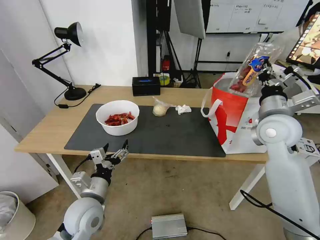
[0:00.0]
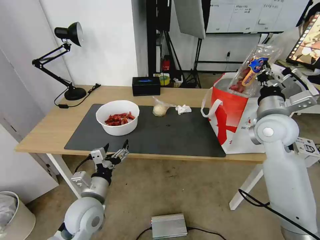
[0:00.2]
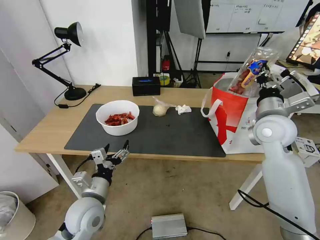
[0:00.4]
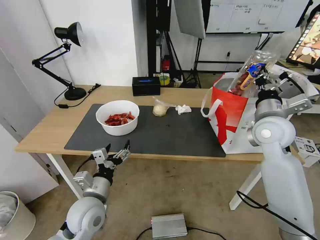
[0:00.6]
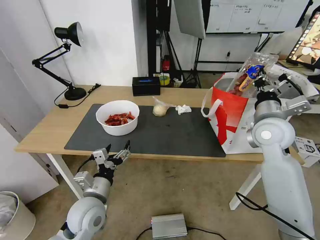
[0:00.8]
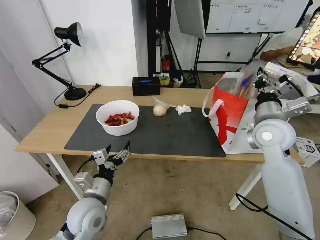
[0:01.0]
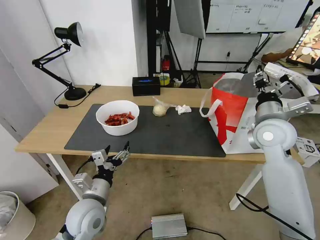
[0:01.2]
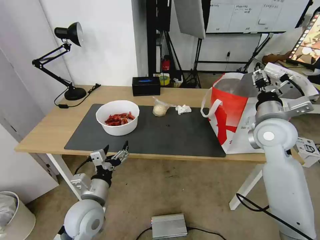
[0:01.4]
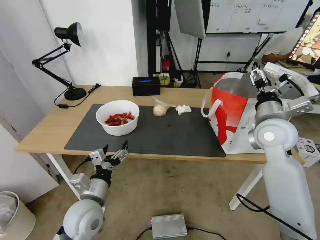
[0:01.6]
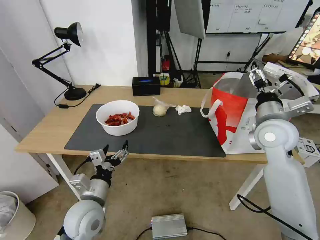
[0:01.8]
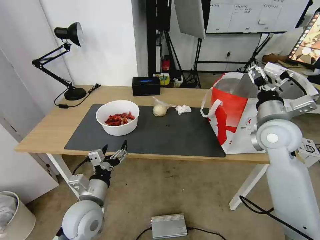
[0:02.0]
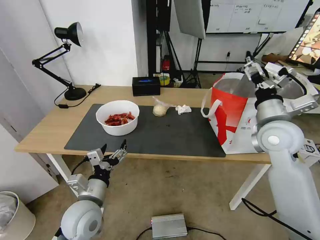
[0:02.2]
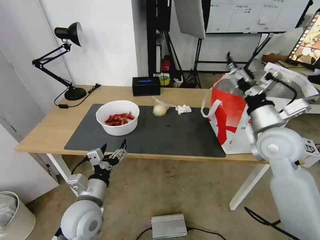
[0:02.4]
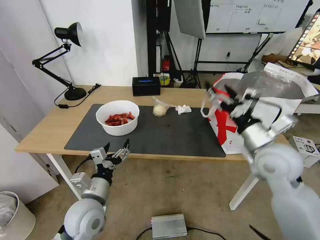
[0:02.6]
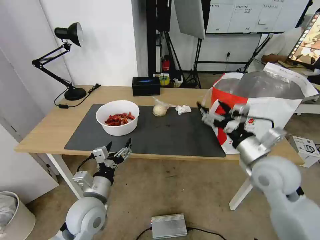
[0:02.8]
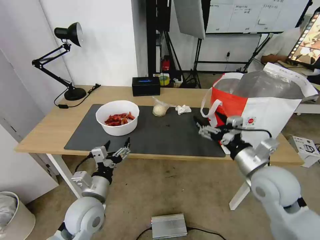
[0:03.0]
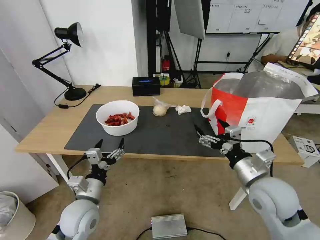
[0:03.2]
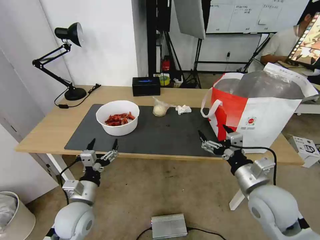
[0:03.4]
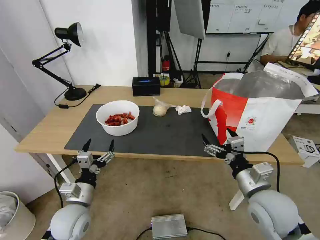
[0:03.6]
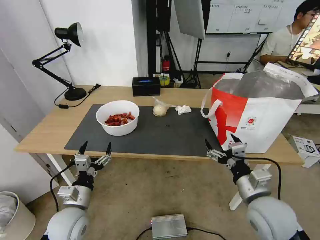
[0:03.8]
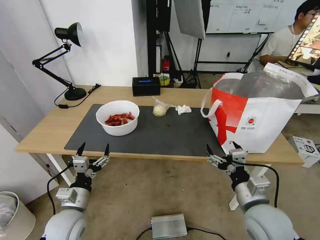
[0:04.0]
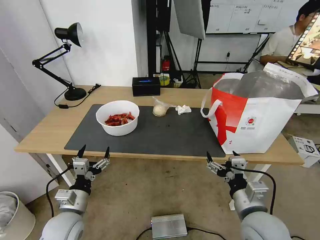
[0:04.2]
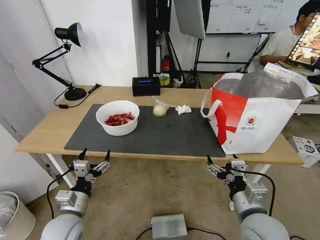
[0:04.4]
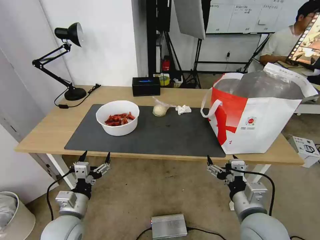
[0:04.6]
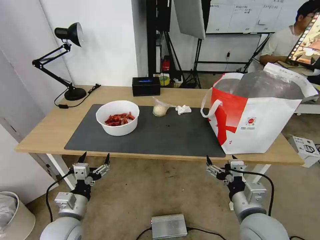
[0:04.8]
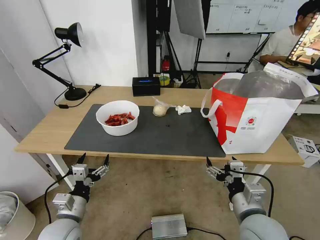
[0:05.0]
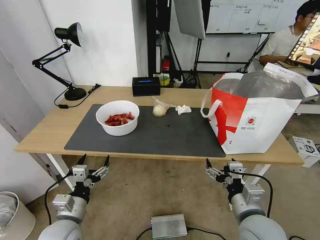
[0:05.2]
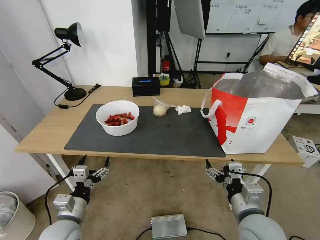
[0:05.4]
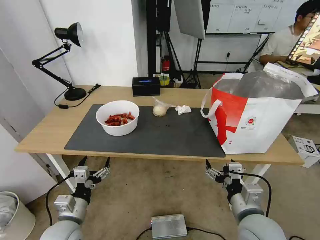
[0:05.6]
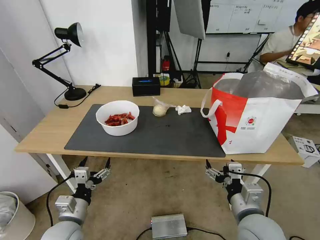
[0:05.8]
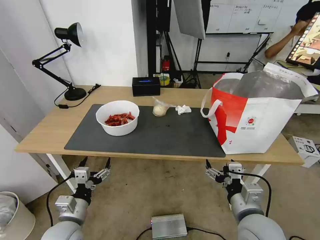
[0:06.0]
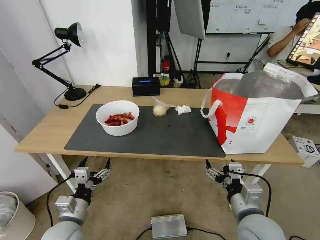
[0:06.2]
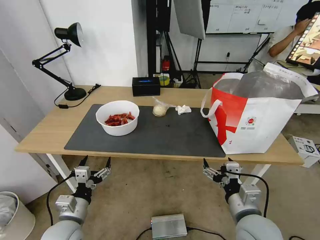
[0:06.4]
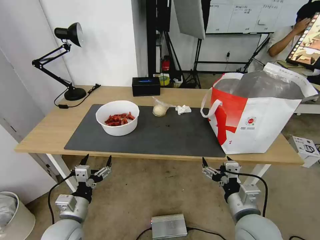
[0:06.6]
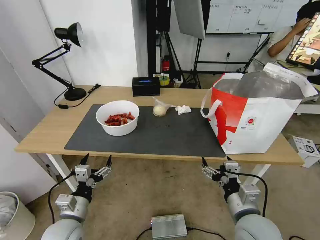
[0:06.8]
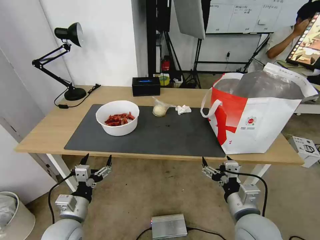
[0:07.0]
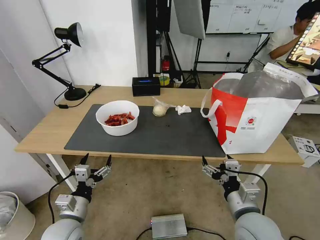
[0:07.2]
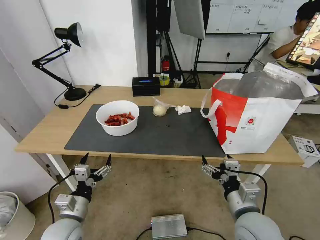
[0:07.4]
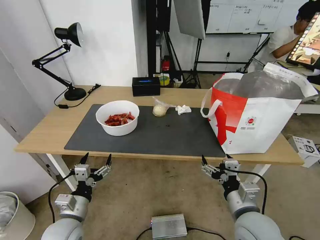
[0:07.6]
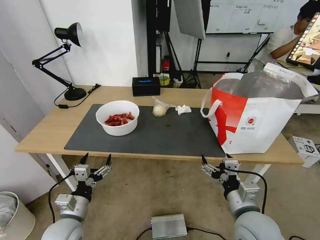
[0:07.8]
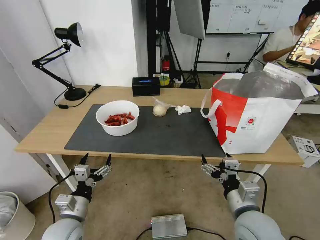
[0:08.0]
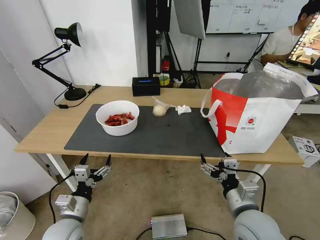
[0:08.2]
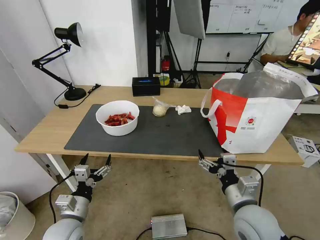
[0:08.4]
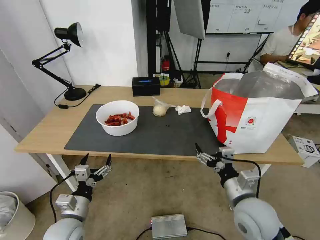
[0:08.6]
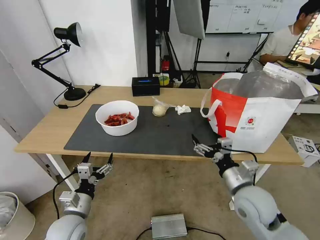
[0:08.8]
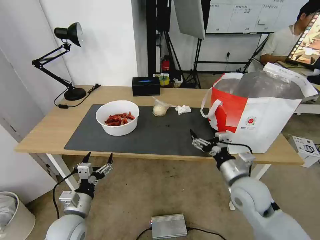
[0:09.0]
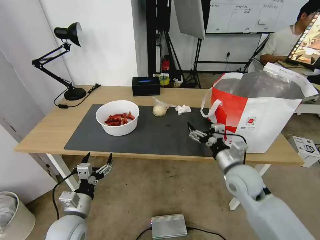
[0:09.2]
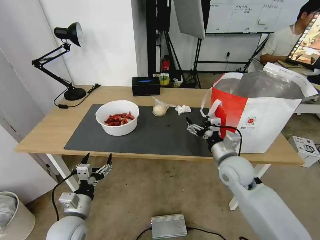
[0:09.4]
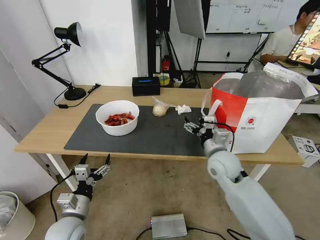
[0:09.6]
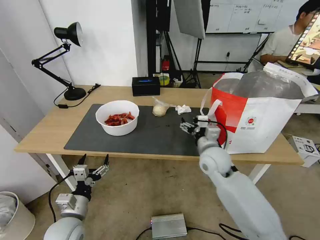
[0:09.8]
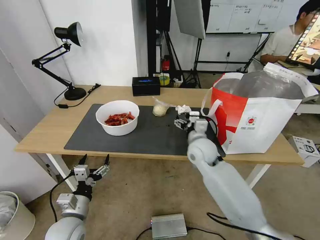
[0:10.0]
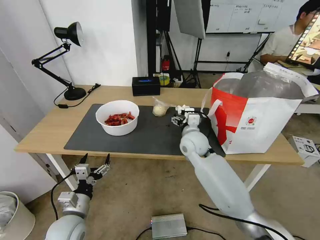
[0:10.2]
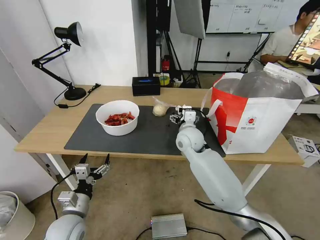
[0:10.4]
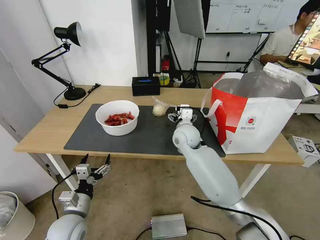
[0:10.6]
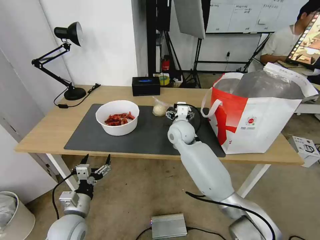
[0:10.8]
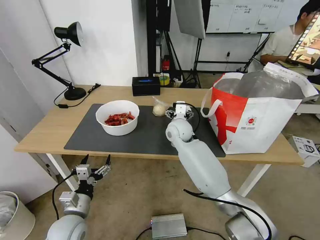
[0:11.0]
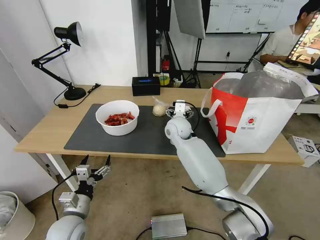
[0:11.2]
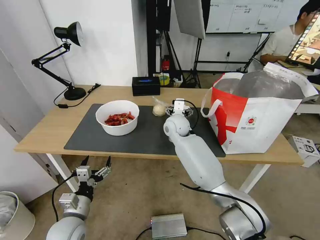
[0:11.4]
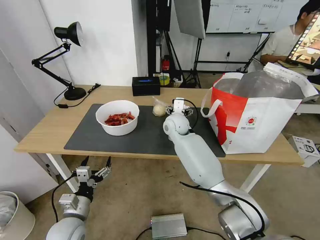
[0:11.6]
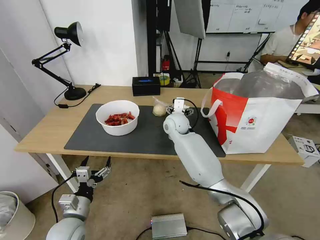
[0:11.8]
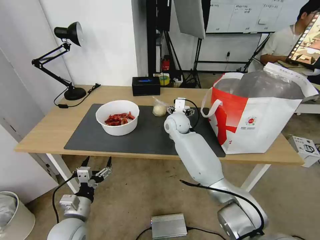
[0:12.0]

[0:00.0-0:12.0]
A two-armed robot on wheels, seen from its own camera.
Task of the whole recording: Pick up the trash from the table and place it into the takeout bag.
0:00.0 to 0:01.6: The right gripper opens.
0:01.6 to 0:03.0: The right gripper moves backward and downward, about 15 cm.
0:03.0 to 0:04.4: The left gripper is displaced to the left by approximately 5 cm; the right gripper moves backward and downward, some 10 cm.
0:04.4 to 0:07.6: There are only small adjustments of the grippers.
0:07.6 to 0:09.0: The right gripper shifts approximately 10 cm forward.
0:09.0 to 0:10.4: The right gripper shifts some 25 cm forward and to the left.
0:10.4 to 0:12.0: The right gripper heads forward, covering roughly 10 cm.

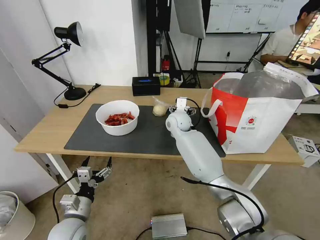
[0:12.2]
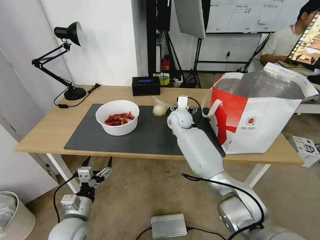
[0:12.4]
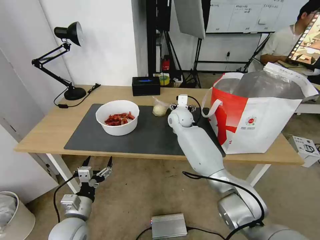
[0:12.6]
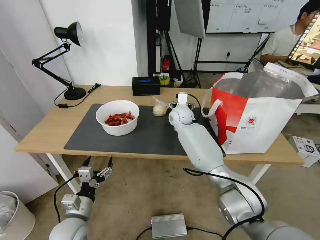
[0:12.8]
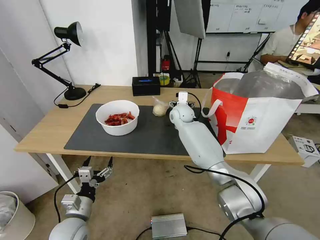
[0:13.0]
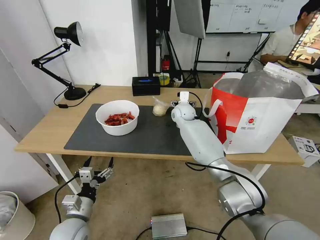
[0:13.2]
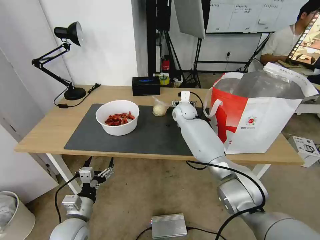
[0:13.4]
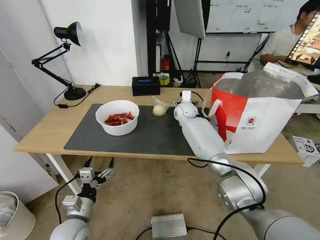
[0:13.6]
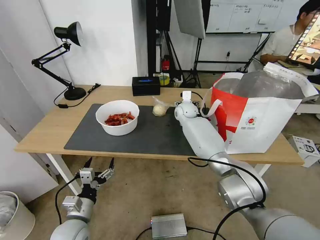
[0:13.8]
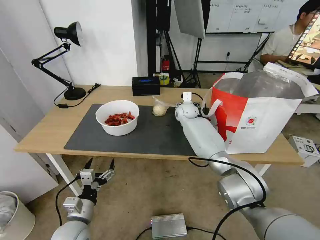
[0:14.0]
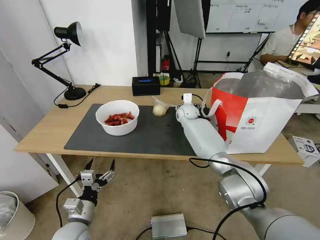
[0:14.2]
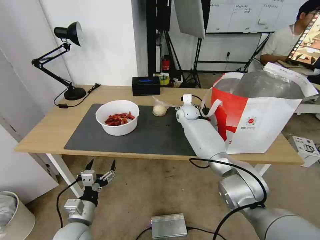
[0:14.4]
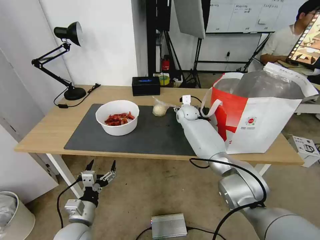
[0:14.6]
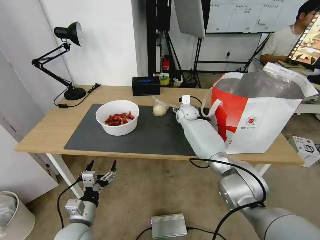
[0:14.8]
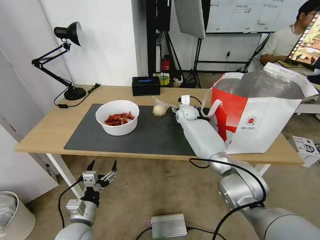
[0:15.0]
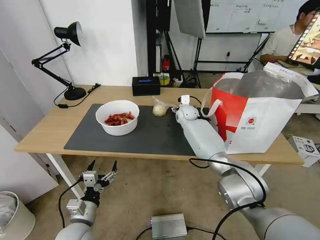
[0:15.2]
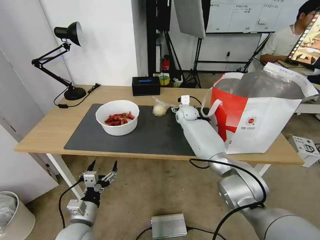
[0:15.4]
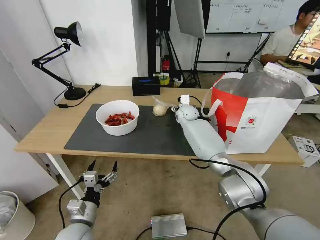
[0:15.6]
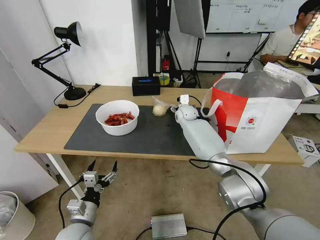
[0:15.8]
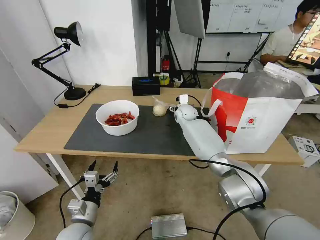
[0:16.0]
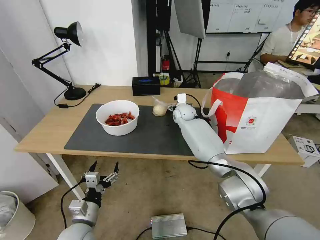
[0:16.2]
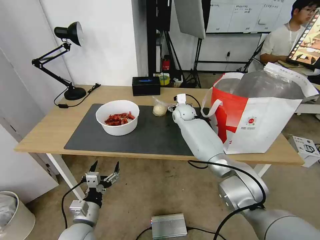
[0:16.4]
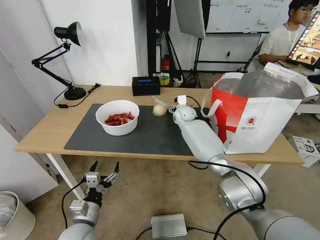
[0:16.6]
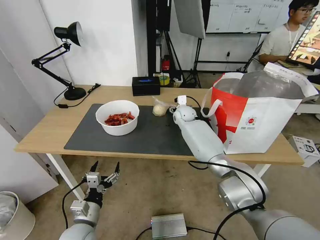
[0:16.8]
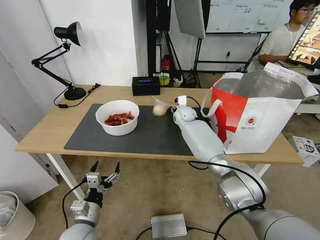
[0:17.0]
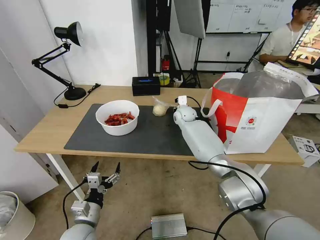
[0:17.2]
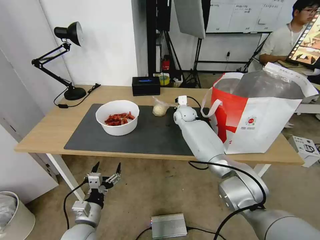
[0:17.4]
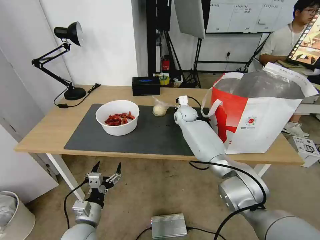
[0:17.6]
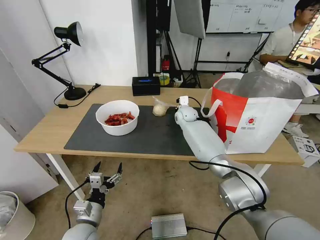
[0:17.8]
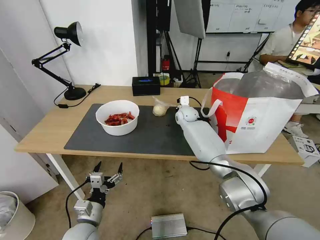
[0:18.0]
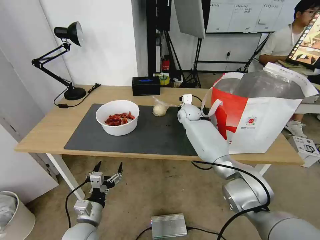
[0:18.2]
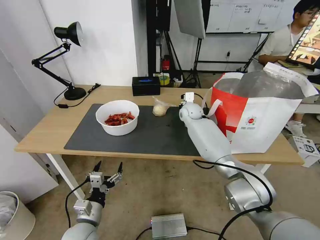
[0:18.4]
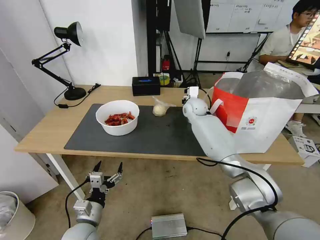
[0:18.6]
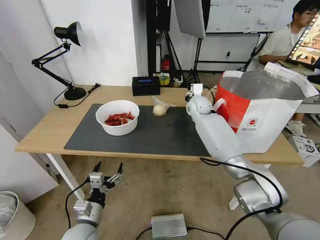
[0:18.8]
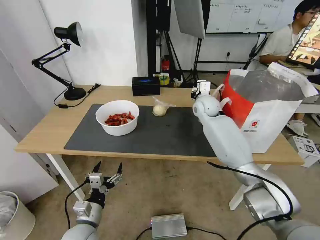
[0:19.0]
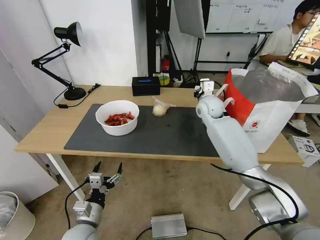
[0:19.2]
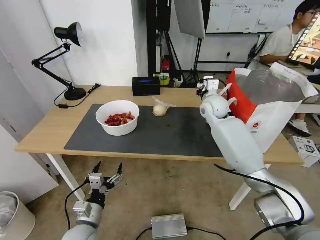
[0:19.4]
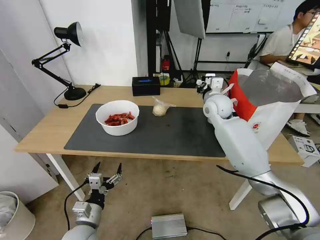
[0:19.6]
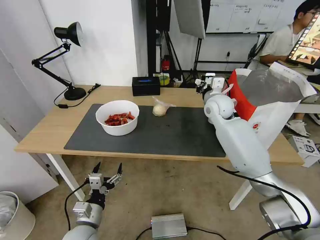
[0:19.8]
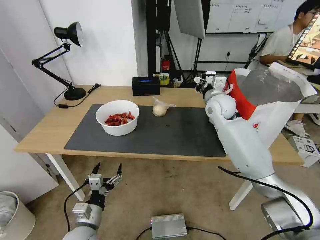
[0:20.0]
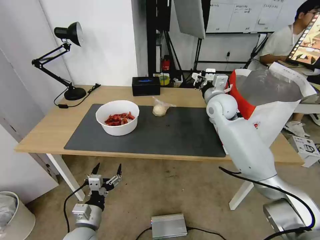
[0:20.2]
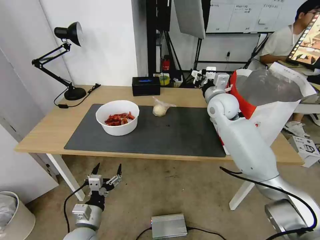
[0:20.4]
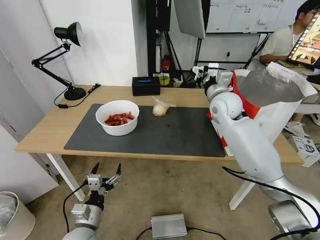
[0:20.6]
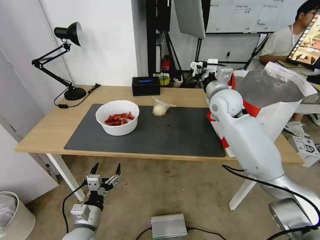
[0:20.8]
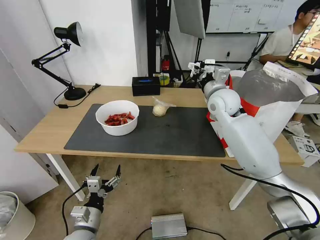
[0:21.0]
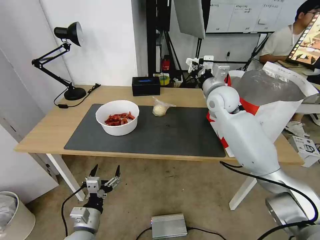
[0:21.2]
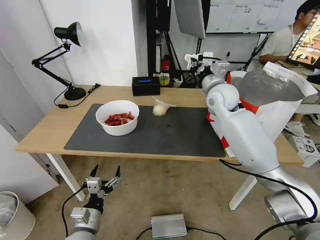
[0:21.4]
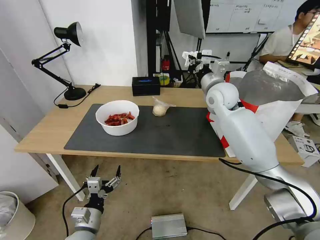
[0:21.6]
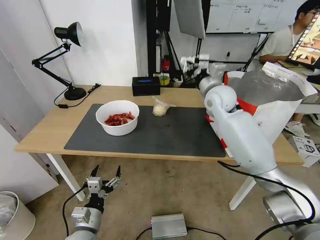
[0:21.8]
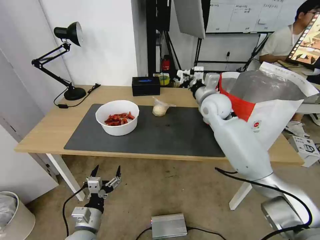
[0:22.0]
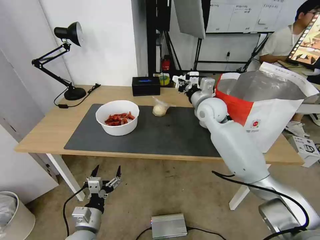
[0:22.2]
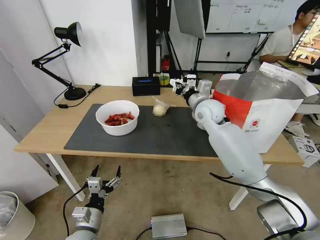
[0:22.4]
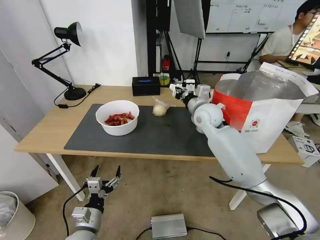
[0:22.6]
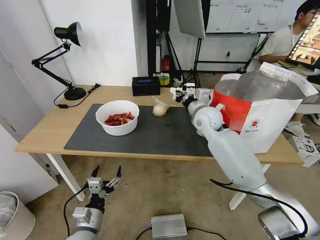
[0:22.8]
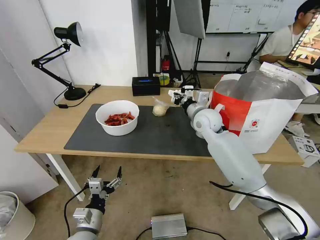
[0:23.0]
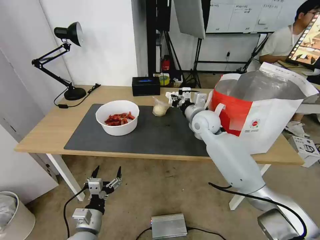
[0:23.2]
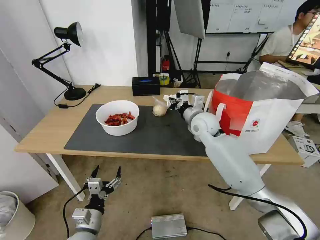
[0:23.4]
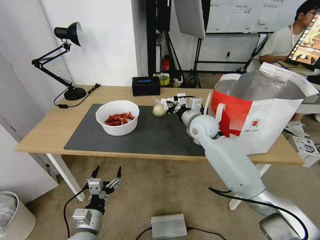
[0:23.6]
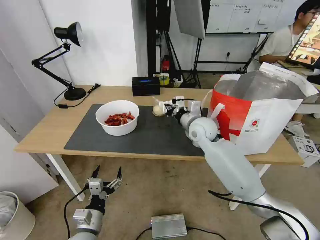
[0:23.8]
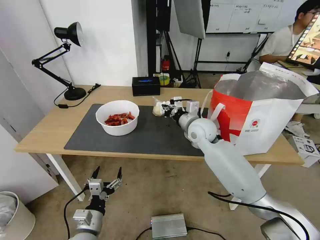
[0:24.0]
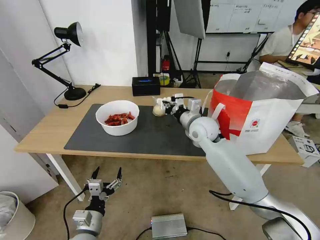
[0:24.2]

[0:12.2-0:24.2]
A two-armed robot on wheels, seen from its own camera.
Task of the whole recording: Pick up the trash from the table and place it into the takeout bag.
0:12.2 to 0:13.8: The right gripper moves forward, about 10 cm.
0:13.8 to 0:16.6: The grippers make only small movements.
0:16.6 to 0:18.2: The right gripper closes up.
0:18.2 to 0:19.8: The right gripper moves upward, backward and to the right, about 15 cm.
0:19.8 to 0:21.2: There are only small adjustments of the grippers.
0:21.2 to 0:22.6: The right gripper is displaced downward by some 5 cm.
0:22.6 to 0:24.2: The grippers stay close to where they were, moving slightly.
